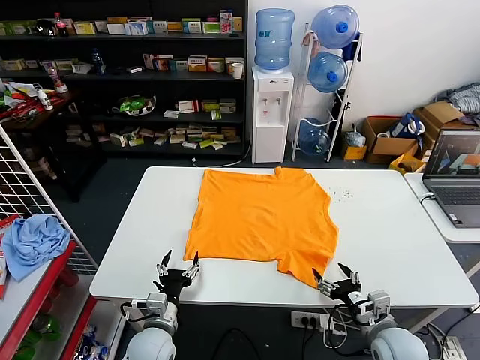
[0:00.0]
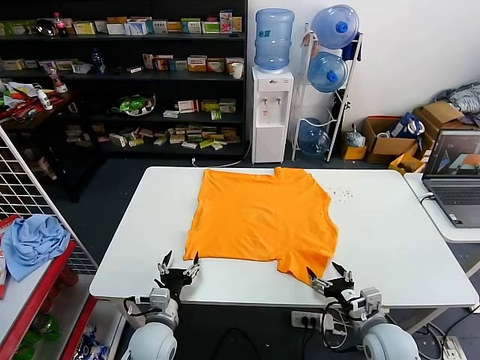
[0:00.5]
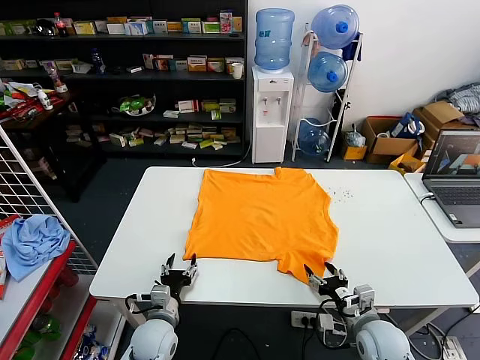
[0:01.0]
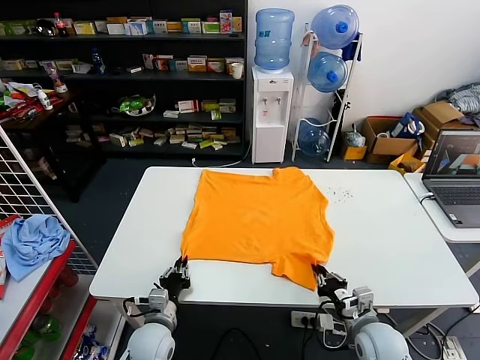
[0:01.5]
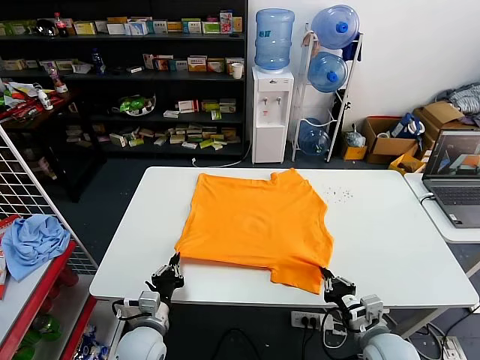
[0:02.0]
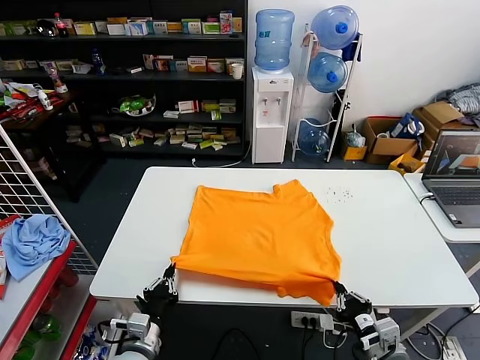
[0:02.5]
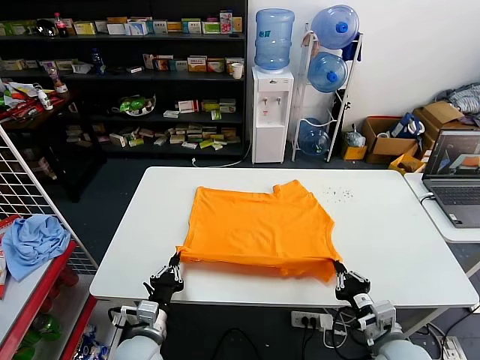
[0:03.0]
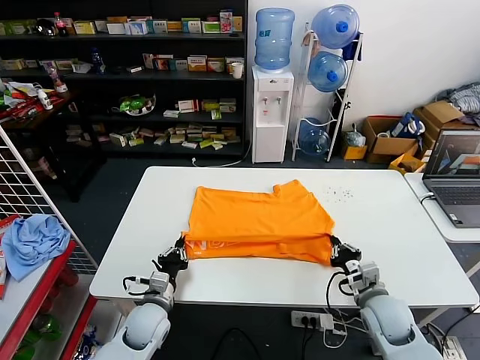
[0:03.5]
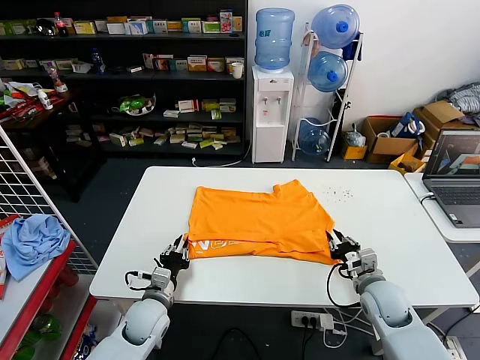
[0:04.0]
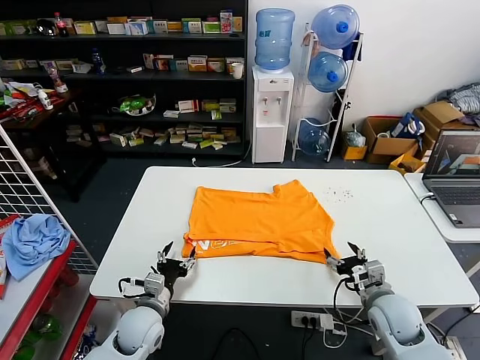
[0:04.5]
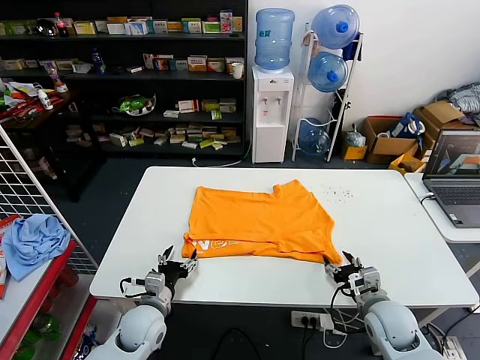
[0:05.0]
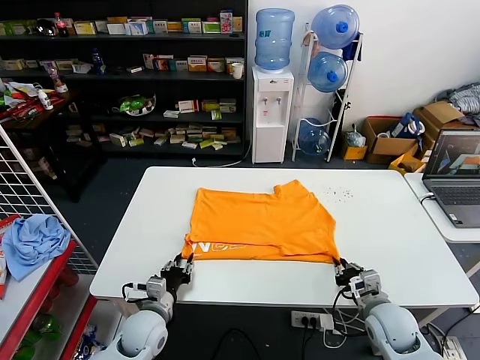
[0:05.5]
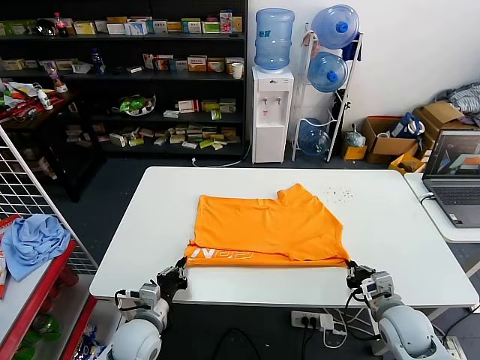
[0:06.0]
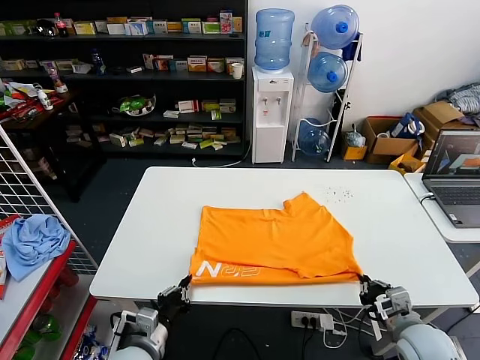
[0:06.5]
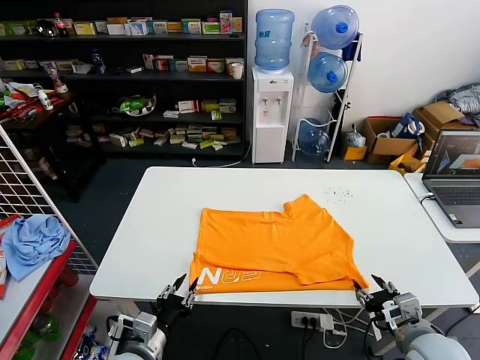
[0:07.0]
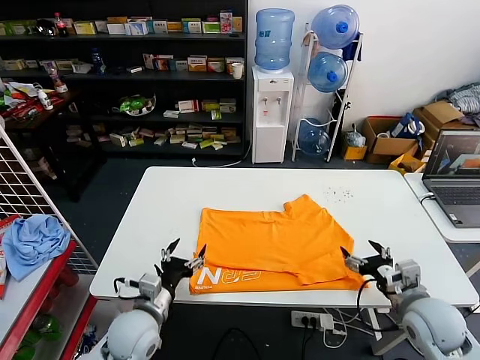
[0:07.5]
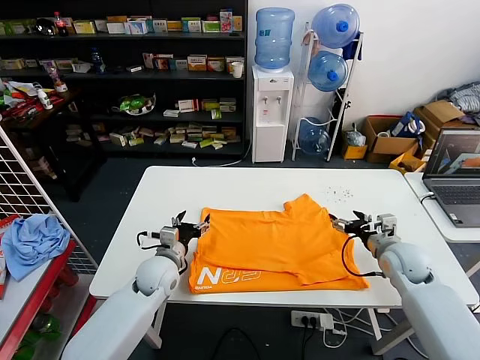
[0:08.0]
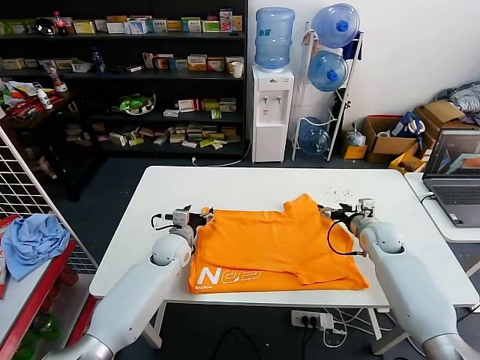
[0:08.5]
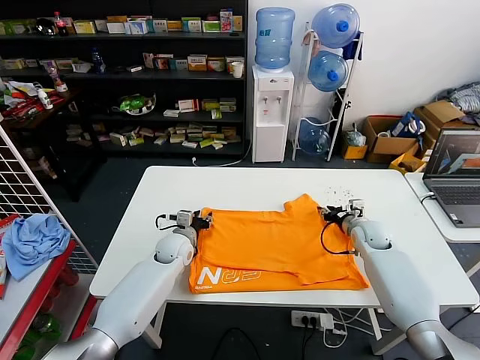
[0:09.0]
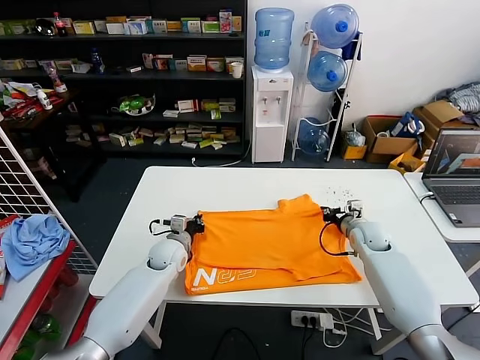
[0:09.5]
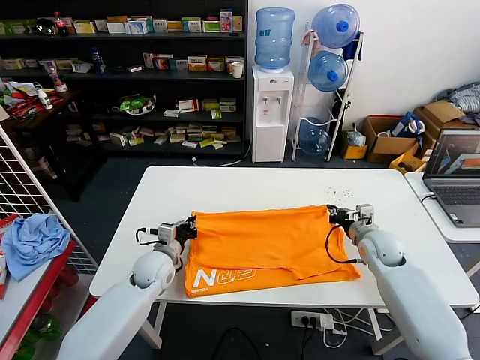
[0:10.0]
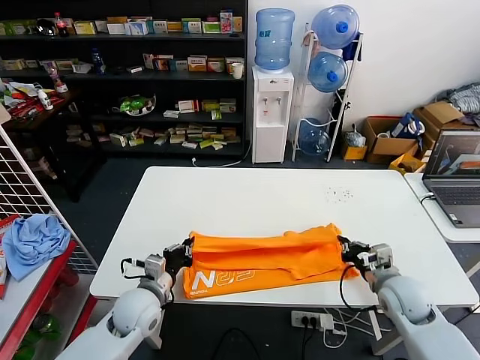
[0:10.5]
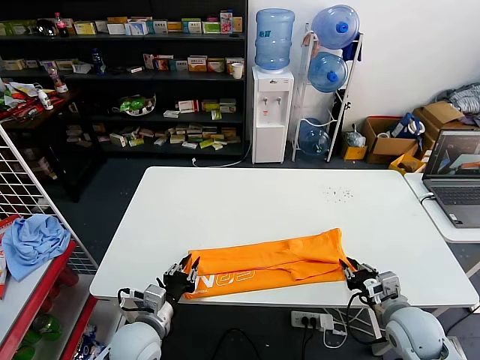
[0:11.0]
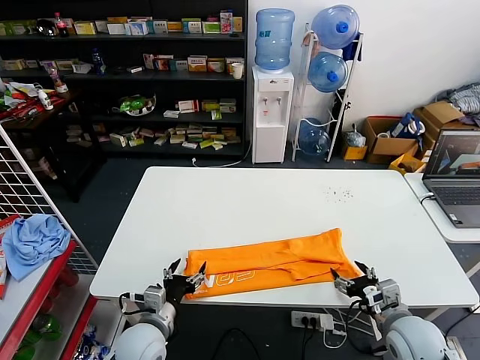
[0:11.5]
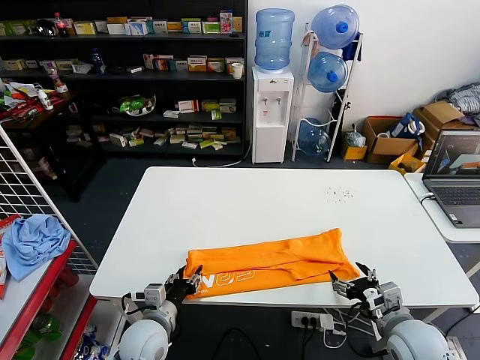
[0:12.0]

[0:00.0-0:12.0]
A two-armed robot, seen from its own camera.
Task of the whole recording: fold and organize the clothes.
Step, 0:00.0 to 0:01.5: use both grippers simultaneously to clamp the lower edge of the clothing fabric.
Step, 0:02.0 to 0:04.0: use both grippers to drag the lower edge of the fabric forward and fold it over the upper edge.
Step, 0:04.5 to 0:06.5: Drag the clothes downward with both gripper.
Step, 0:07.0 to 0:09.0: use both grippers simultaneously to clamp the upper edge of the clothing fabric.
Step, 0:09.5 to 0:11.0: use both grippers to drag the upper edge of the fabric backward and fold it over the lower edge.
0:02.0 to 0:04.0: The left gripper moves forward, approximately 5 cm; the right gripper travels forward by approximately 10 cm, and opens.
0:04.0 to 0:06.0: The left gripper opens and closes again, while the right gripper is displaced backward by approximately 5 cm, and closes.
0:06.0 to 0:08.0: Both grippers move forward and upward, some 15 cm. The right gripper opens. The left gripper opens.
0:08.0 to 0:10.0: The grippers both shift forward by some 5 cm. The right gripper closes; the left gripper closes its fingers.
0:10.0 to 0:12.0: The grippers both shift backward by about 20 cm. The left gripper opens its fingers. Meanwhile the right gripper opens its fingers.

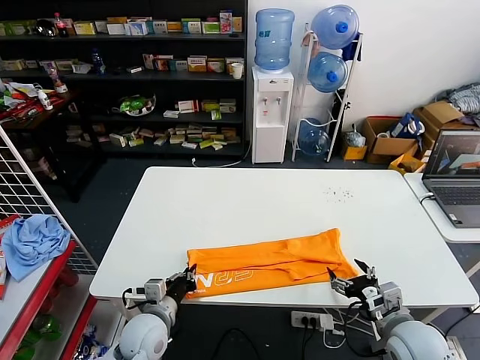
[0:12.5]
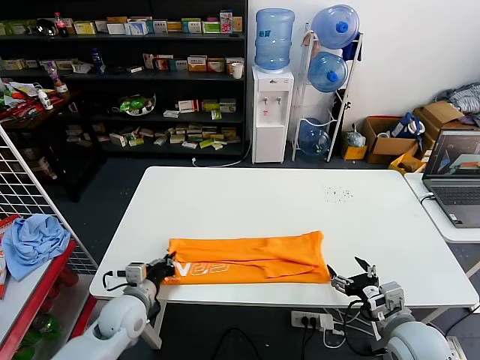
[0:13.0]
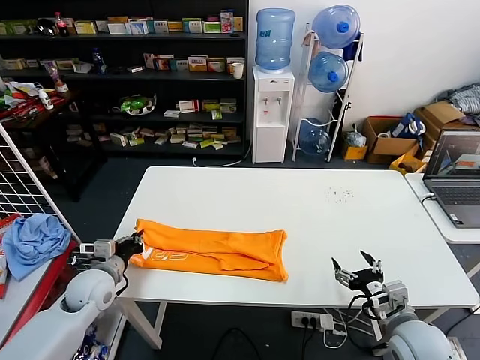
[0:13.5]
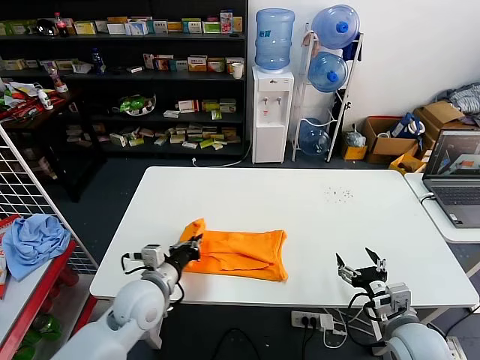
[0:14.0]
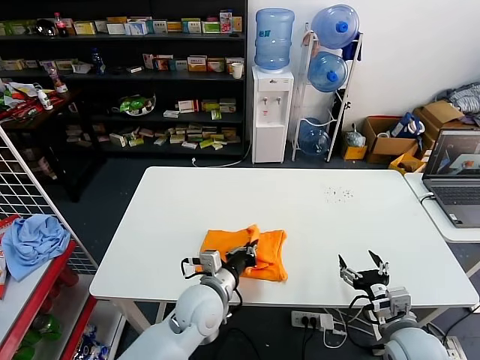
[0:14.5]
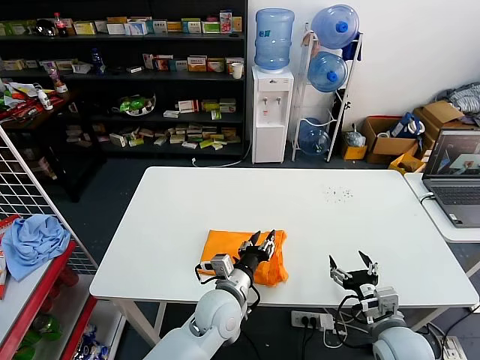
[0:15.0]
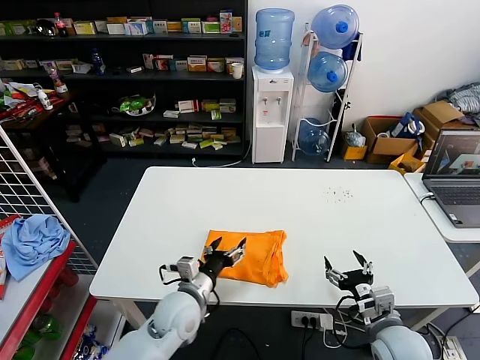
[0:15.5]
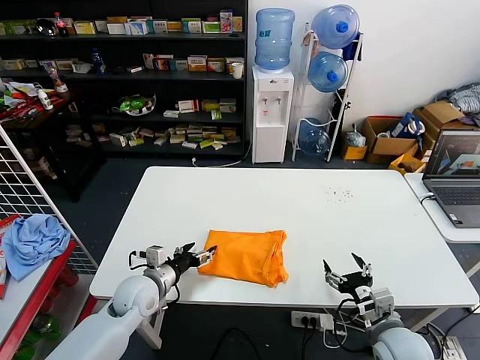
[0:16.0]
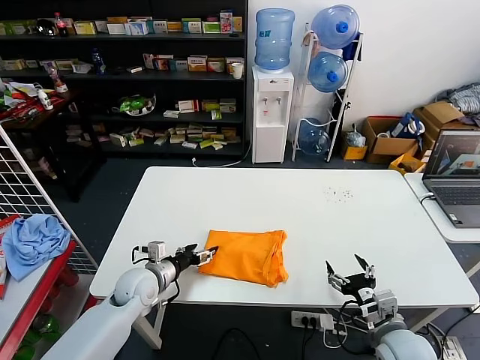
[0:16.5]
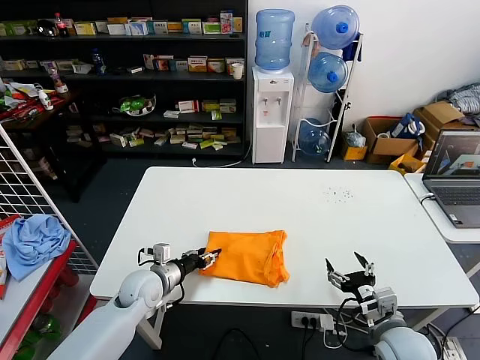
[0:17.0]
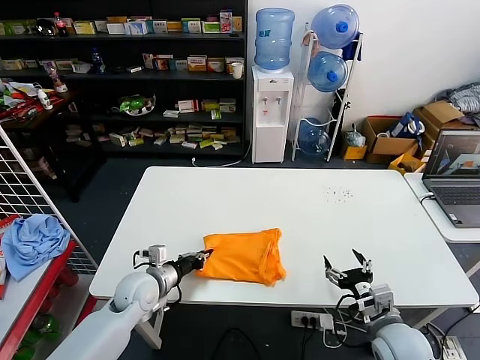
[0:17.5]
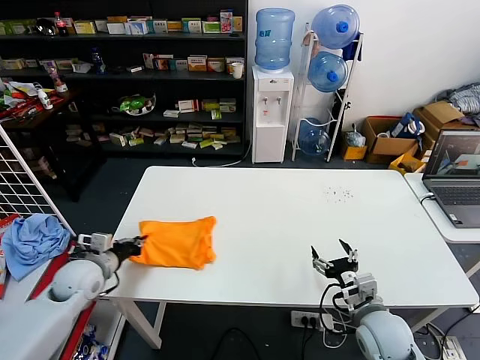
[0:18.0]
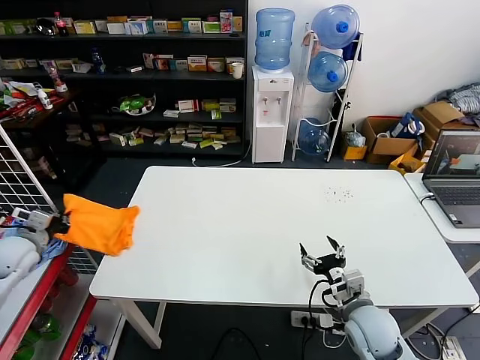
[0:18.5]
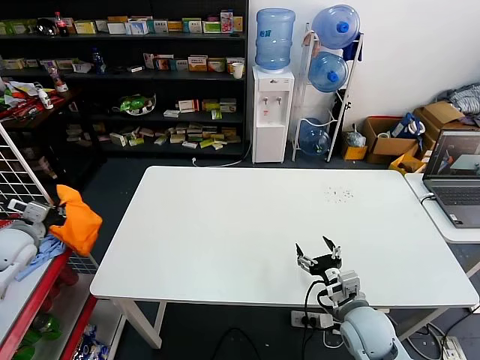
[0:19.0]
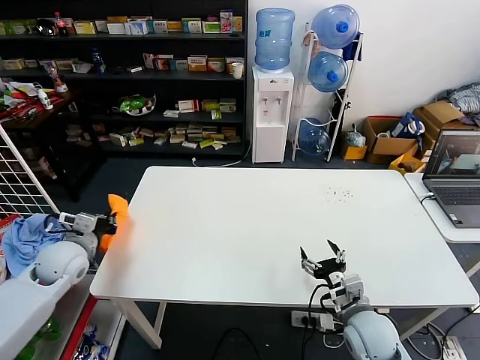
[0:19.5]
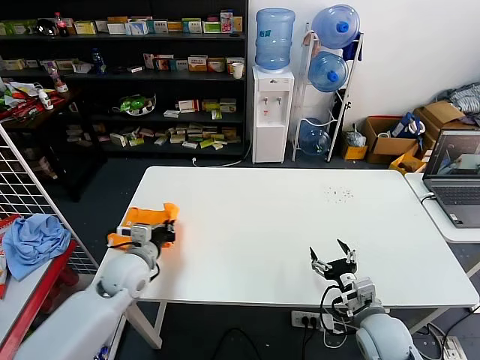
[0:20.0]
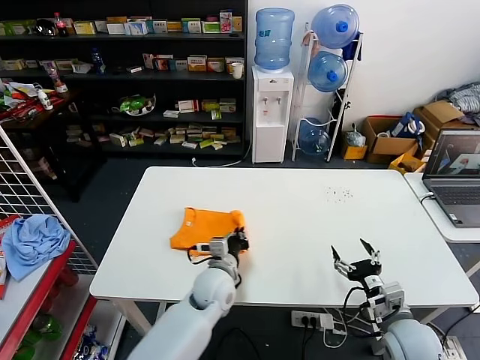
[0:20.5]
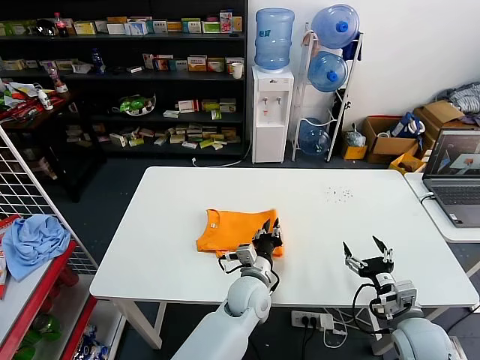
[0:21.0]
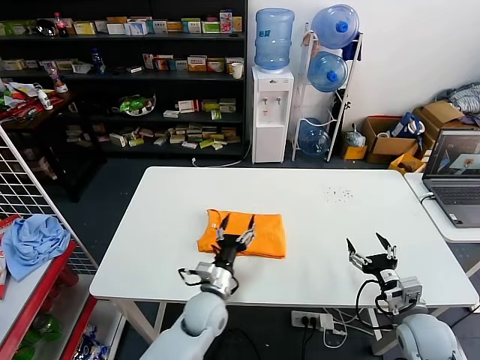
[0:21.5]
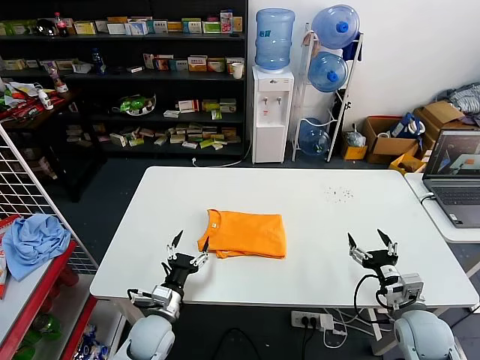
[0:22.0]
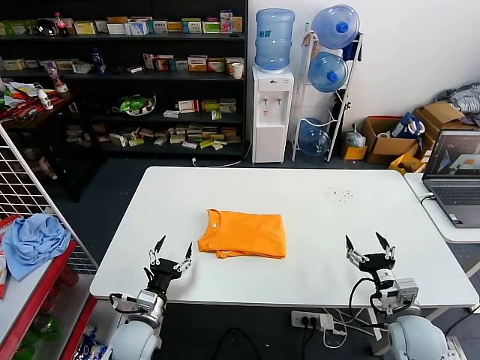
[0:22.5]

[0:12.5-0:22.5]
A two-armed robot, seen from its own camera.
Task of the whole recording: fold and organize the clothes.
Step, 0:13.0 to 0:15.0: use the left gripper to drag the left edge of the fabric to the left and folds it over the right edge.
Step, 0:15.5 to 0:21.0: Flip the folded clothes over with left gripper.
0:12.5 to 0:14.5: The left gripper heads to the right and upward, covering approximately 15 cm.
0:14.5 to 0:16.5: The left gripper moves to the left, roughly 15 cm, and opens its fingers.
0:16.5 to 0:18.5: The left gripper shifts some 25 cm to the left and upward, and closes its fingers. The right gripper moves about 5 cm.
0:18.5 to 0:20.5: The left gripper moves to the right, some 40 cm. Meanwhile the right gripper moves to the right, roughly 5 cm.
0:20.5 to 0:22.5: The left gripper goes some 20 cm to the left, backward and downward, and opens its fingers.

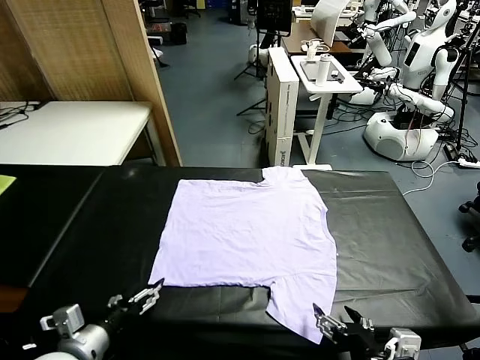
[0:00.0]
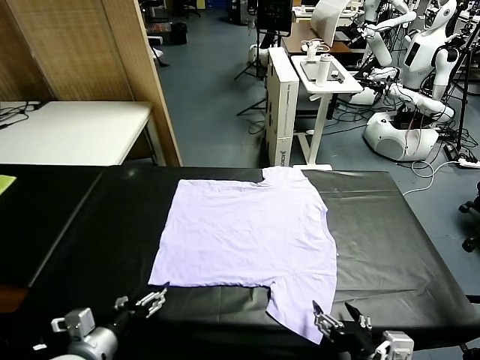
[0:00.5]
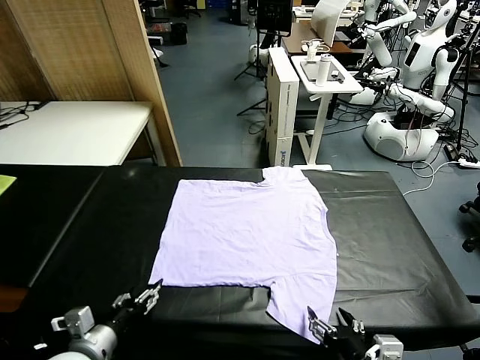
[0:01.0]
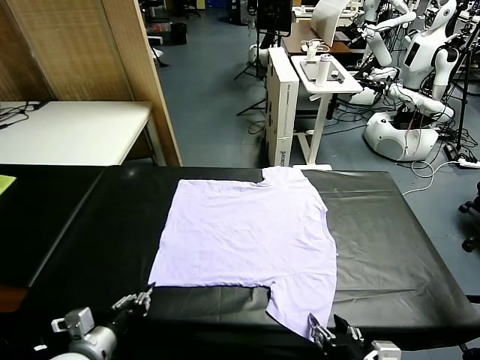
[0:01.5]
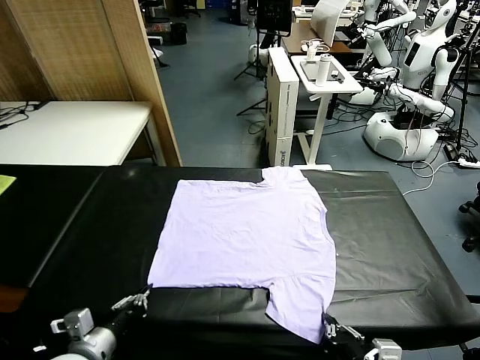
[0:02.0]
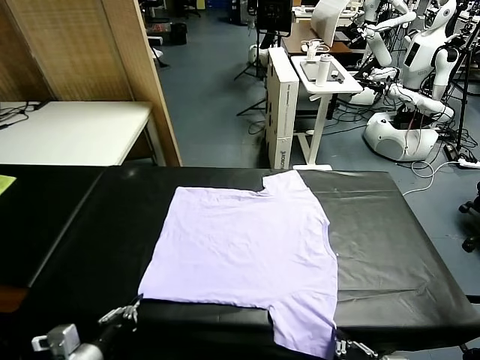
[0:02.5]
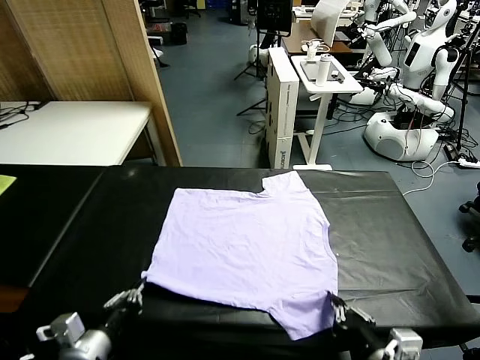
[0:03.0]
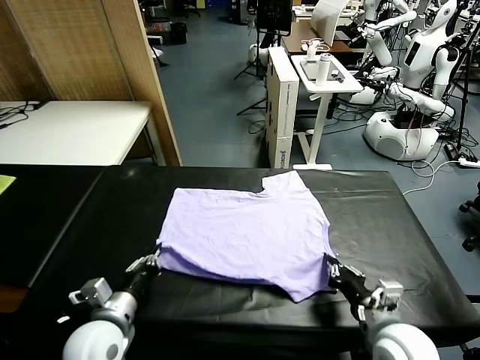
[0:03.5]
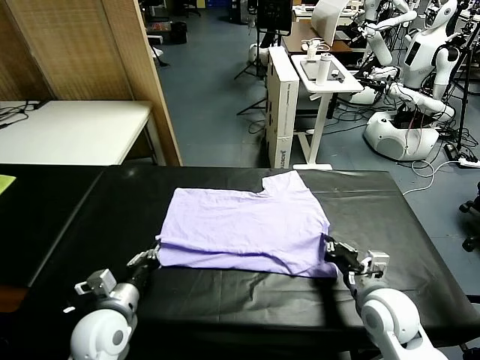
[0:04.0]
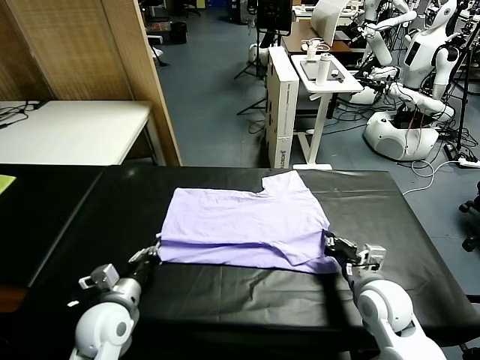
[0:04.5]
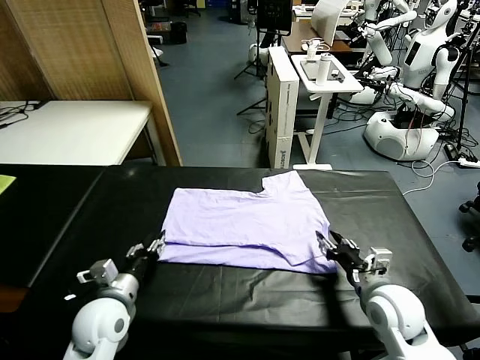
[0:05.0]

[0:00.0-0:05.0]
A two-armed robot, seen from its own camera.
Task of the whole recording: fold and organize the clothes.
Step, 0:00.0 to 0:02.0: use both grippers simultaneously to clamp the lower edge of the clothing fabric.
0:02.5 to 0:05.0: The right gripper goes about 15 cm forward and to the right, and opens its fingers; the left gripper goes about 15 cm forward, and opens its fingers.
